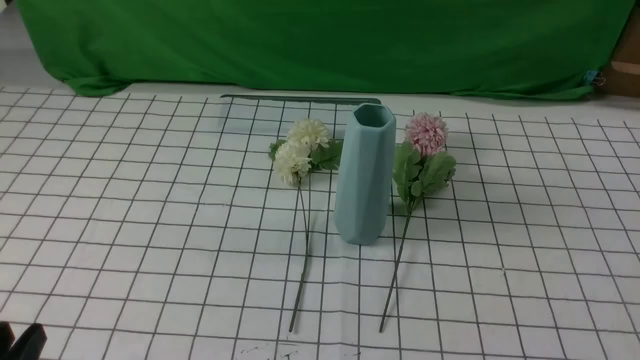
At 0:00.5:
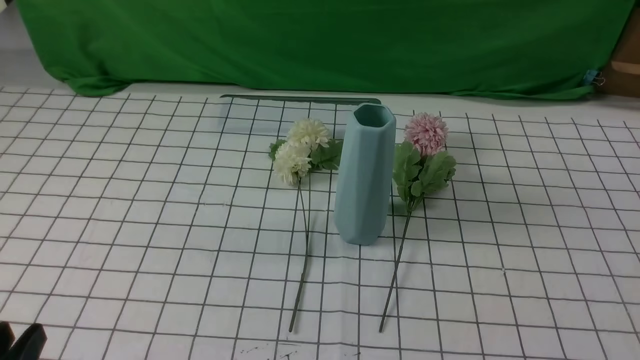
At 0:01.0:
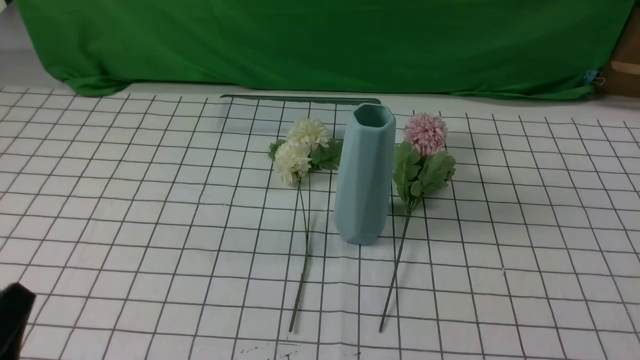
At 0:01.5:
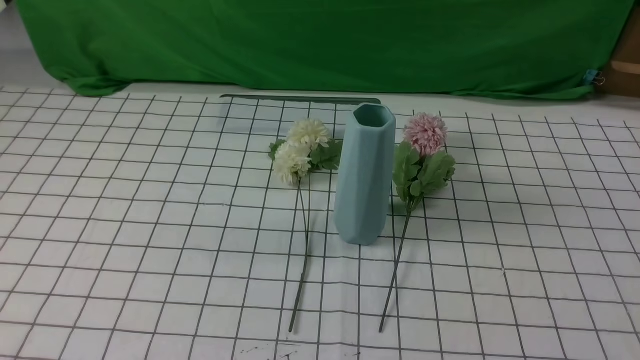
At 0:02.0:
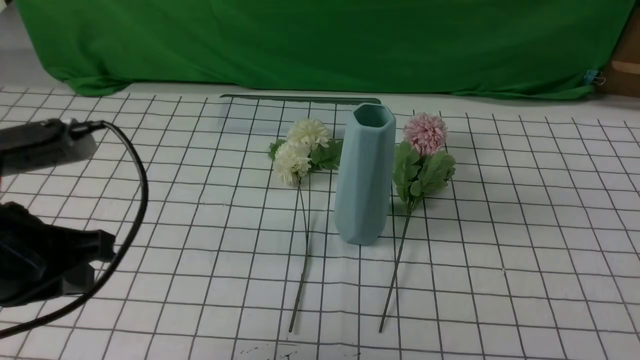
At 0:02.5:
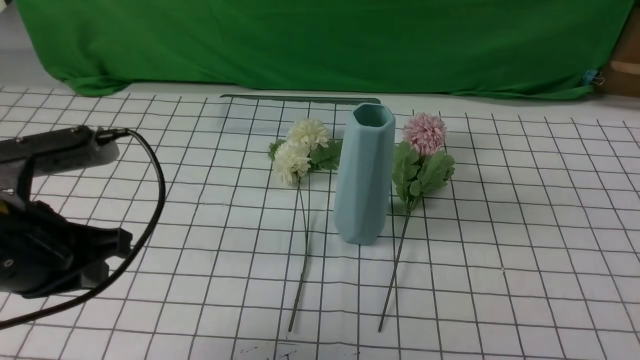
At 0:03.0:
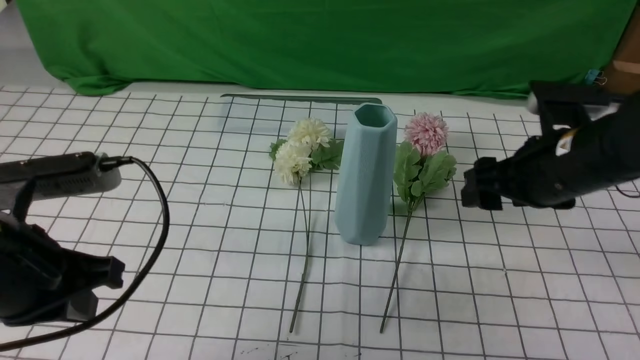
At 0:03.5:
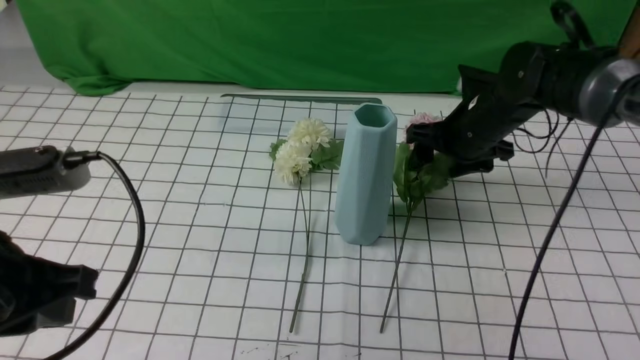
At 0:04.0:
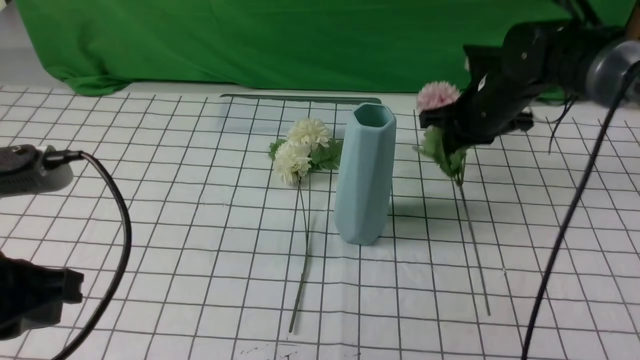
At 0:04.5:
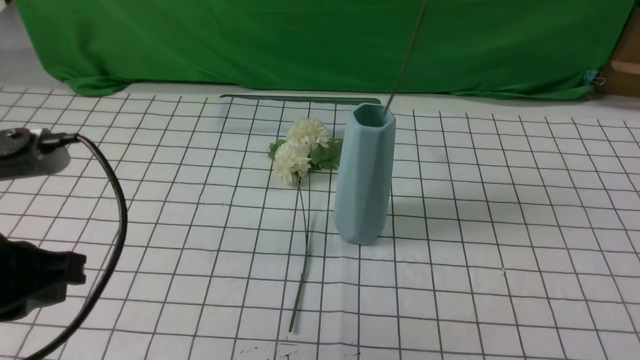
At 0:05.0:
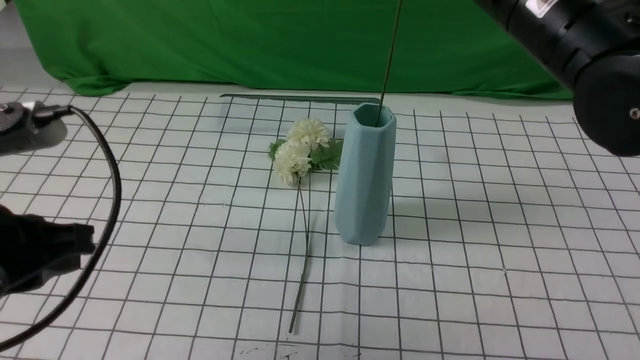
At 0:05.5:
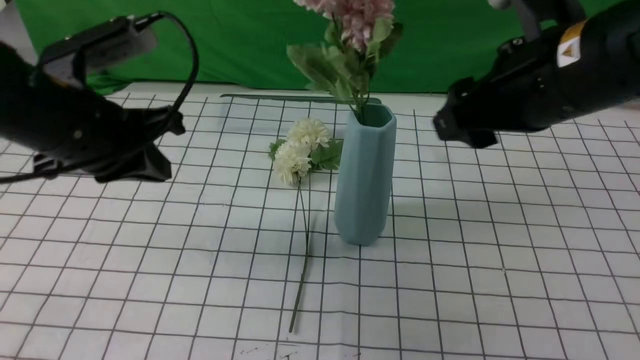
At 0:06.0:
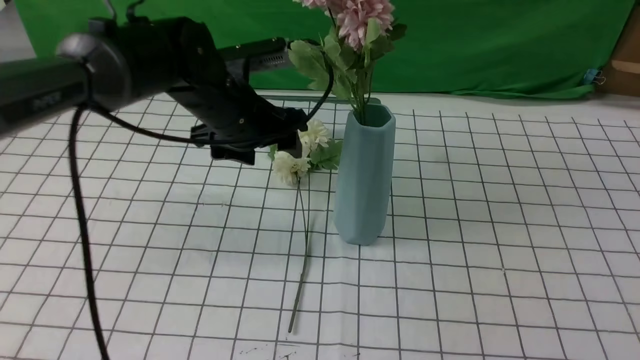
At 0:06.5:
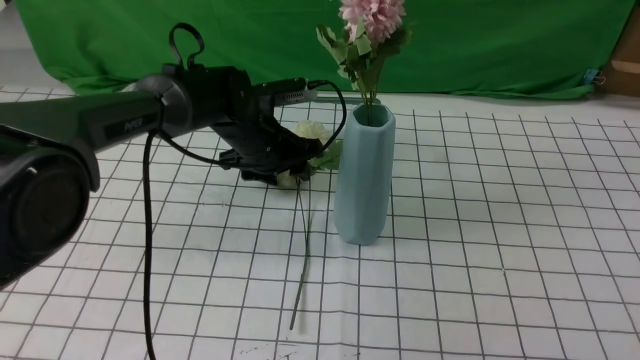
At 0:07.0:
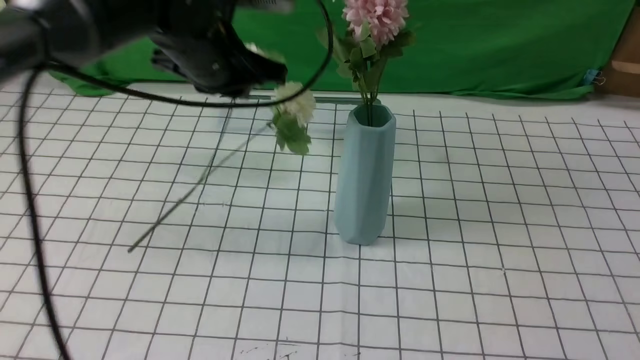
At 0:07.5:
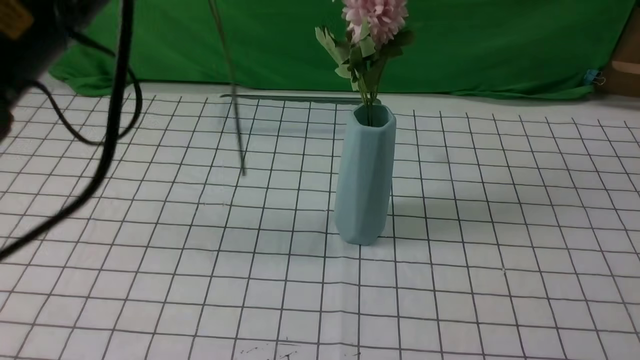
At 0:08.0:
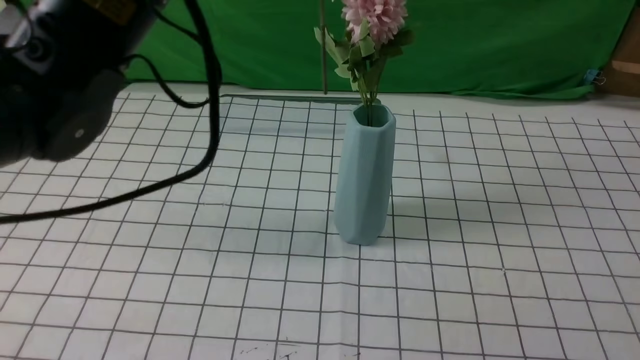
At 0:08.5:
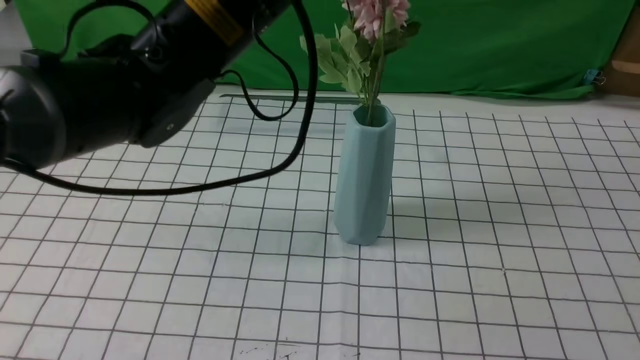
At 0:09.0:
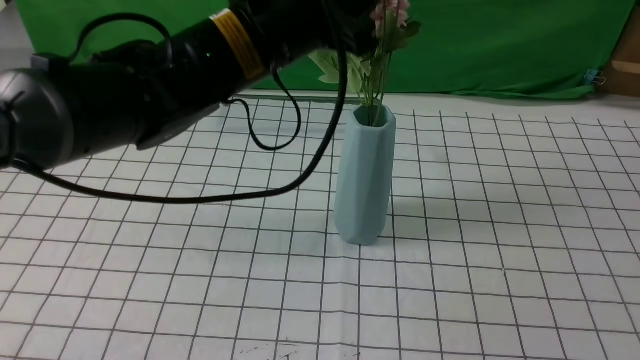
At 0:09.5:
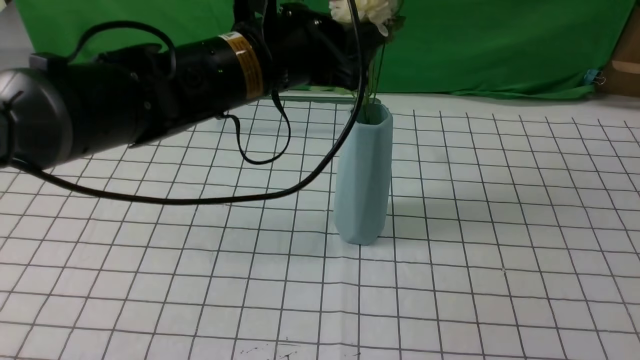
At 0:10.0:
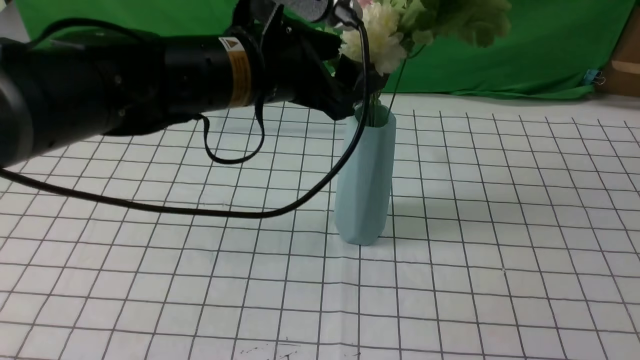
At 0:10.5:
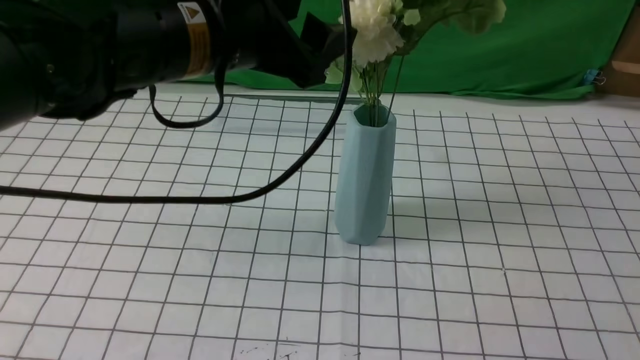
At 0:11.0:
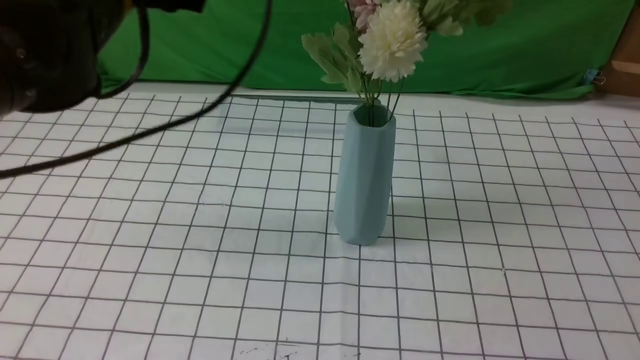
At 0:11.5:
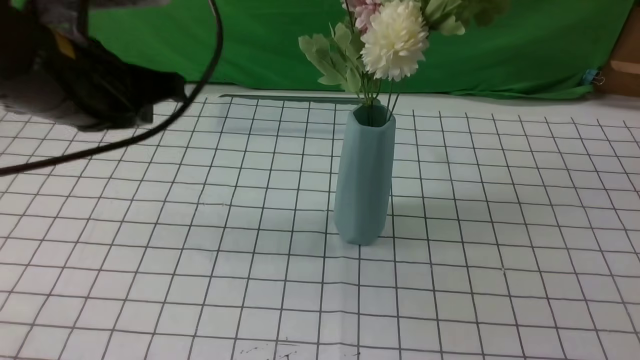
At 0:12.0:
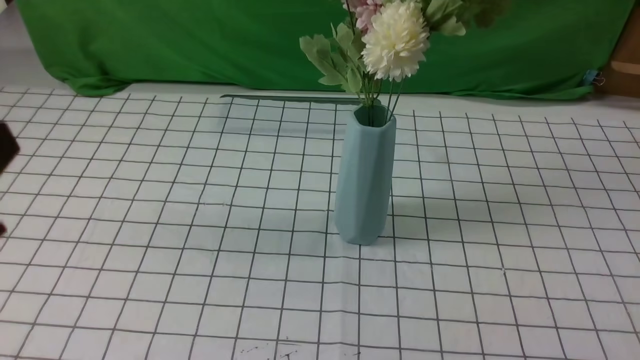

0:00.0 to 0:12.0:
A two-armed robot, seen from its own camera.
Task of the whole recording: insert the flowers into the vase on the table with the white tablecloth.
Step, 0:00.0 to 0:03.5: use the right arm to grab a bunch of fresh flowers.
Step, 0:04.0 to 0:05.0: use the right arm to insert the flowers into the vase.
Step, 0:05.5 to 0:06.5: use the left arm to grab a bunch of fresh flowers.
Step, 0:07.0 to 0:10.0: use the left arm to insert the flowers into the vase.
0:00.0 to 0:02.0: The left gripper shifts roughly 15 cm forward and upward, and closes up.
0:02.0 to 0:04.0: The right gripper moves forward, about 40 cm, and opens, then closes once more.
0:04.0 to 0:06.0: The right gripper travels backward and upward by roughly 35 cm, and opens, then closes once more; the left gripper moves forward and to the right, roughly 30 cm, and opens up.
0:06.0 to 0:08.0: The left gripper goes about 25 cm upward and backward, and closes, while the right gripper heads backward and to the right, covering approximately 10 cm.
0:08.0 to 0:10.0: The left gripper heads downward and to the right, covering some 10 cm, and opens up.
0:10.0 to 0:12.0: The right gripper is displaced downward by approximately 10 cm. The left gripper is displaced backward and to the left by about 30 cm, and closes.

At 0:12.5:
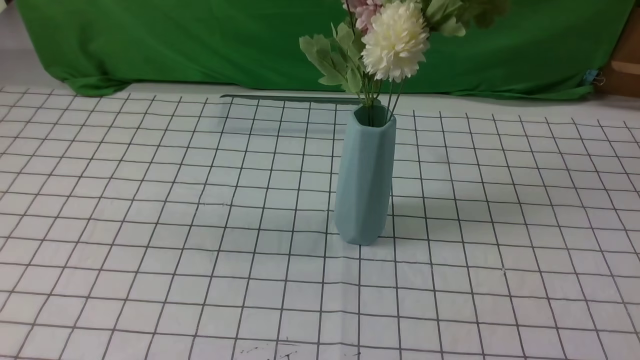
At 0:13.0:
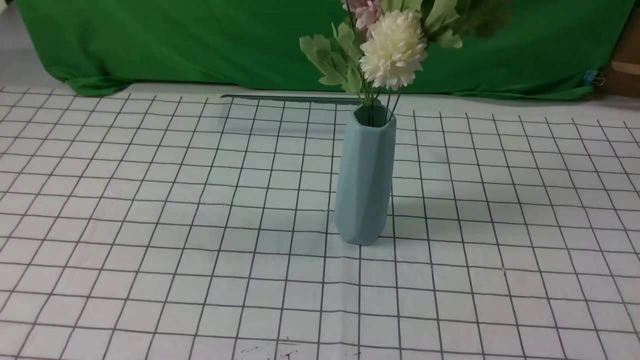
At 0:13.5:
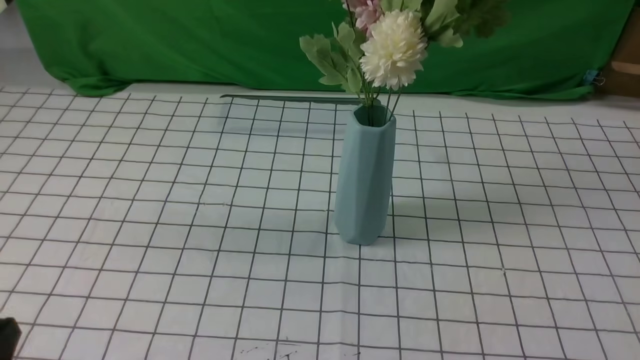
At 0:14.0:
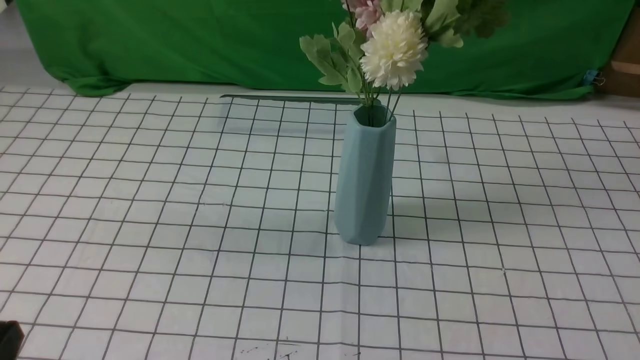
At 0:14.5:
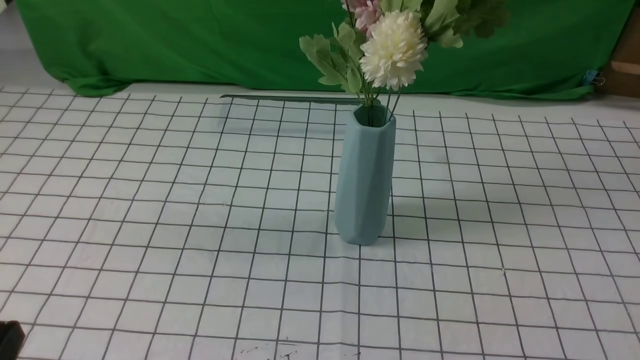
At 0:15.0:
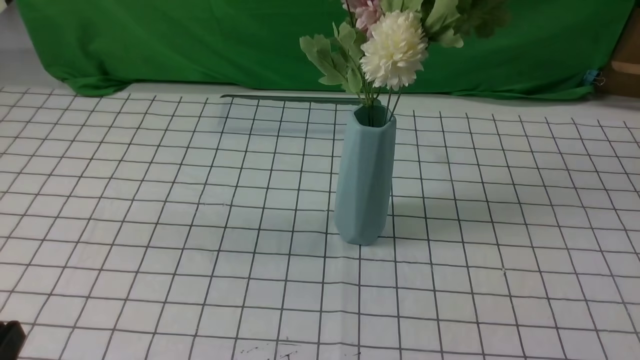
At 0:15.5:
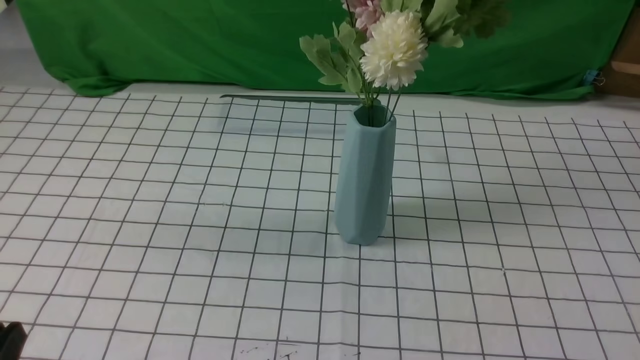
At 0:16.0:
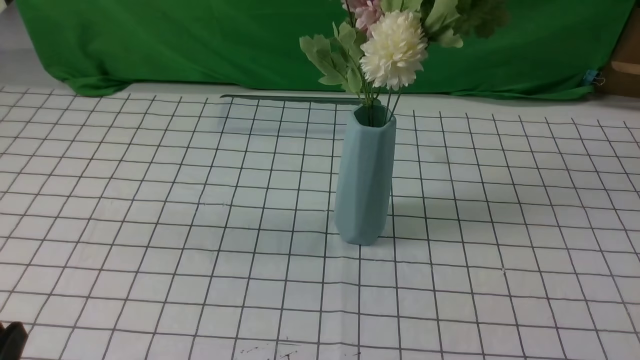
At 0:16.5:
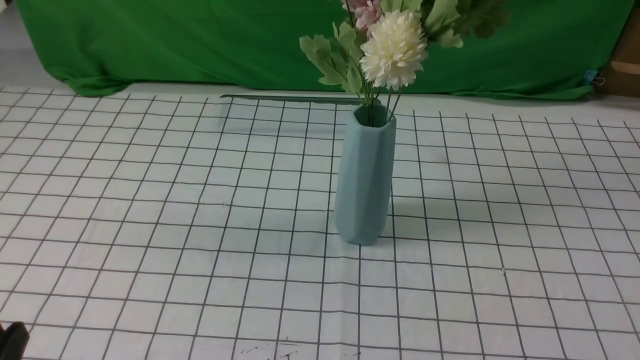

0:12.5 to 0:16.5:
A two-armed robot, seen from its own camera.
Task of the whole recording: insert the flowers into the vase on the table with the white tablecloth.
0:12.5 to 0:14.5: The left gripper goes some 15 cm downward.
